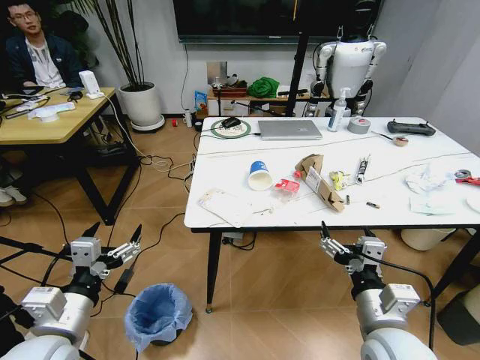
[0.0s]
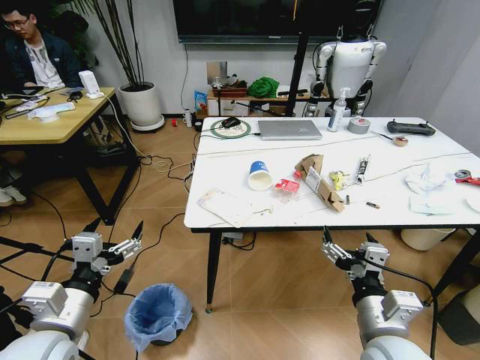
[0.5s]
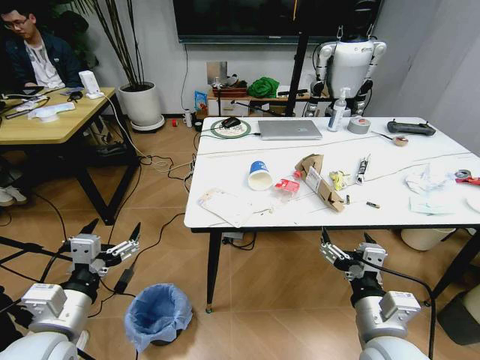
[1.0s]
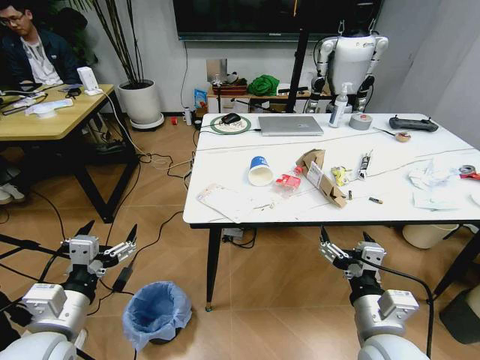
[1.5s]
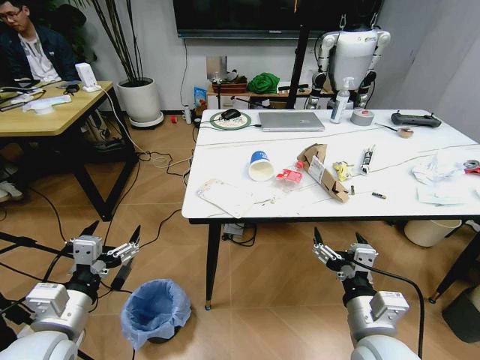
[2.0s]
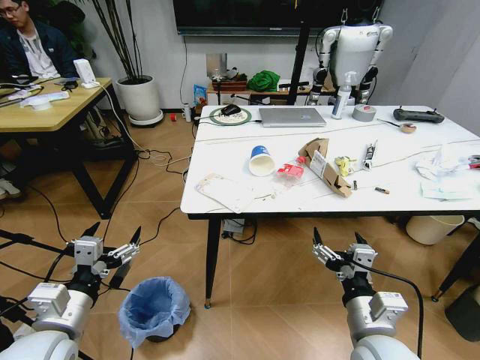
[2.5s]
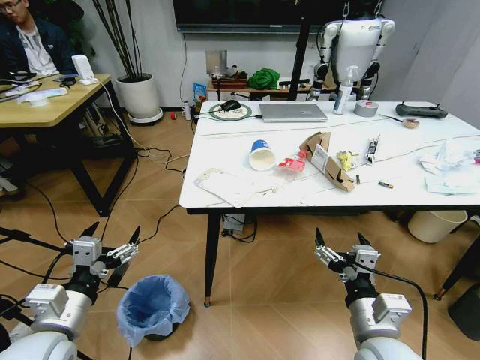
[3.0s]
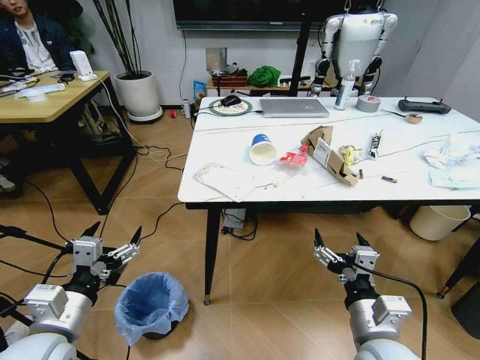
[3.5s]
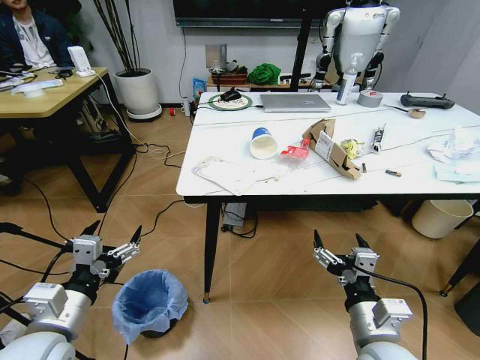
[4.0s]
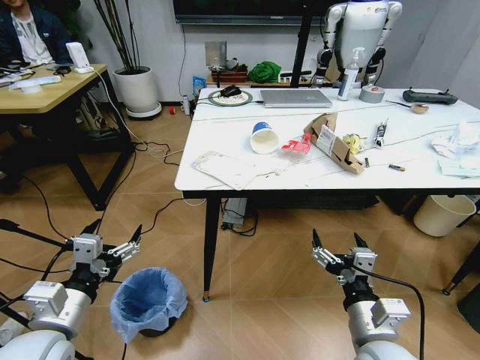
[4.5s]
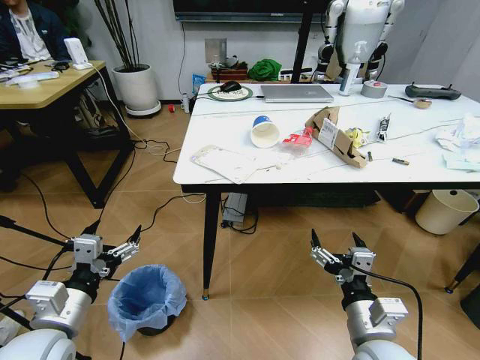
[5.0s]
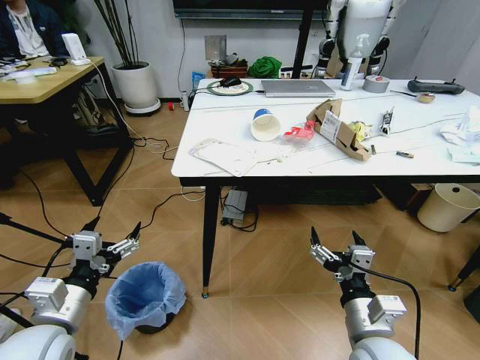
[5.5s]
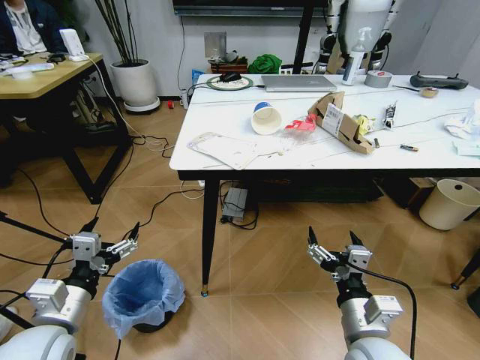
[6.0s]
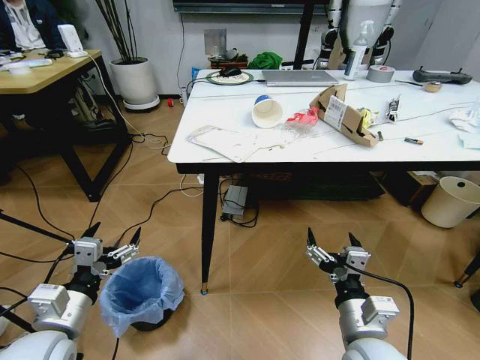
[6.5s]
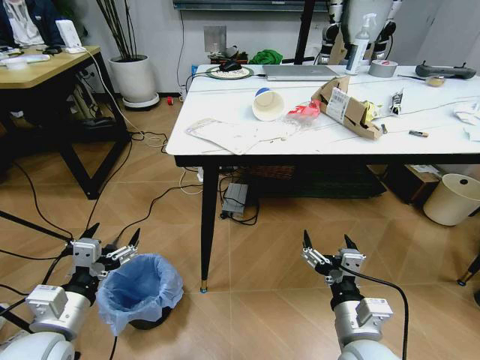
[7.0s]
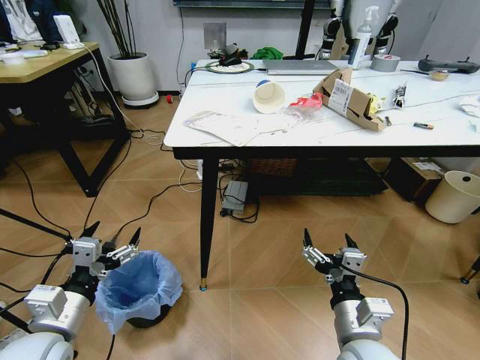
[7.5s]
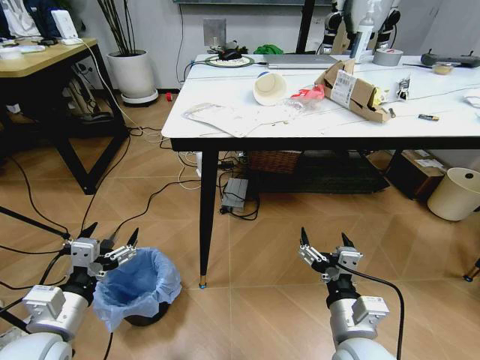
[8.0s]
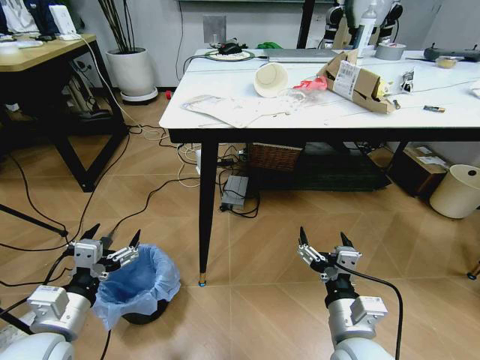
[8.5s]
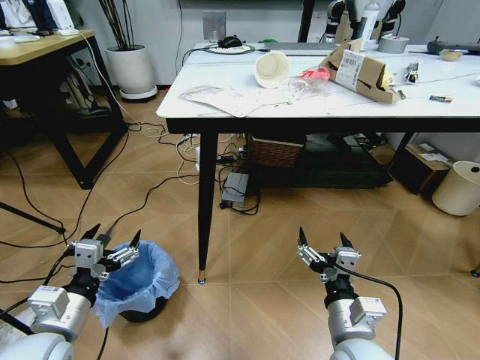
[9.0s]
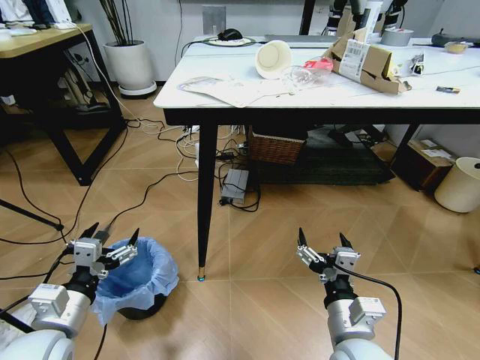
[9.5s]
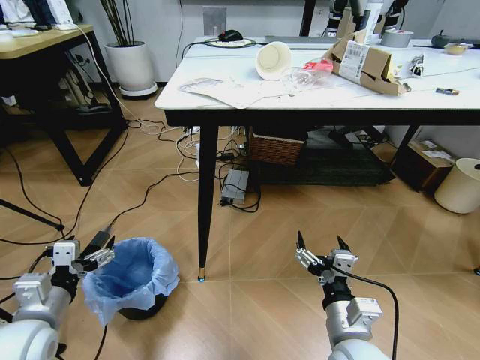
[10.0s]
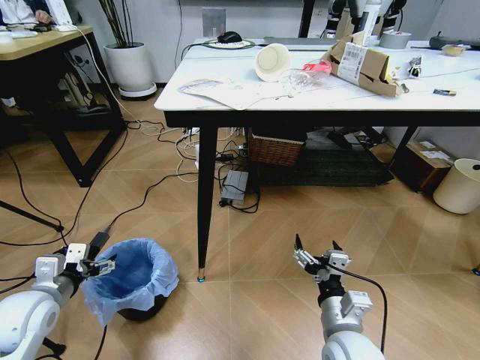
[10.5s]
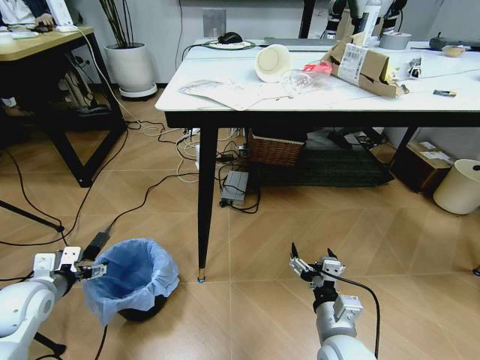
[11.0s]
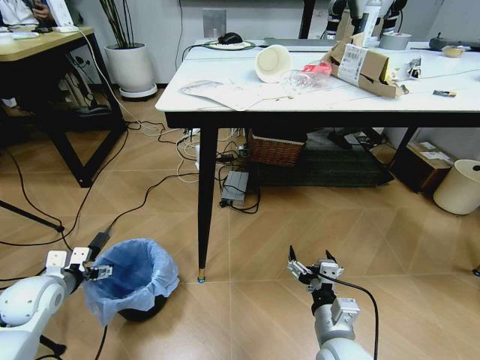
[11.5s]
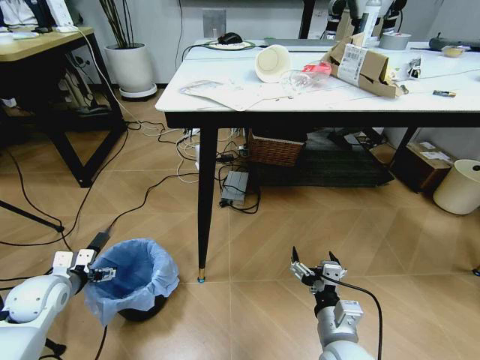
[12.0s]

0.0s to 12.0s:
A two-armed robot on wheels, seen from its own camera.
Task of the whole recording: Pick up the trash bin and place the trash from the table into it.
10.0s to 12.0s: The left gripper is displaced forward, to the left and downward by approximately 15 cm. Meanwhile the right gripper changes place by roughly 5 cm.

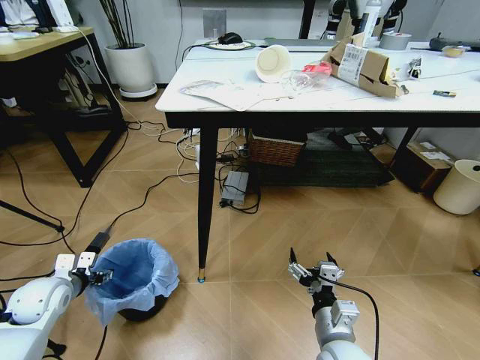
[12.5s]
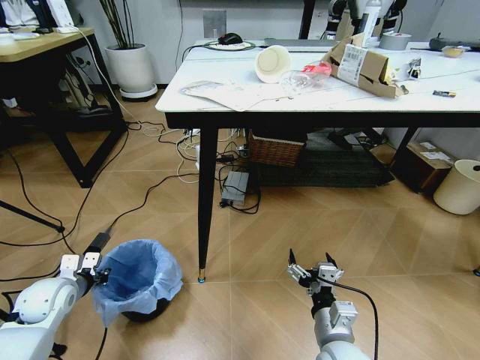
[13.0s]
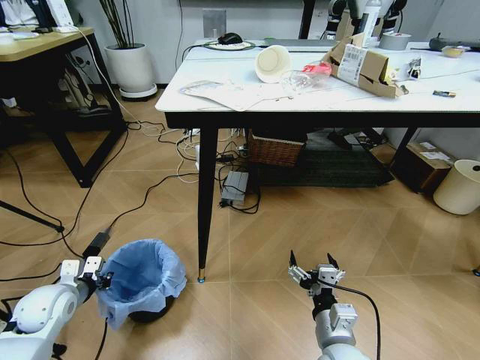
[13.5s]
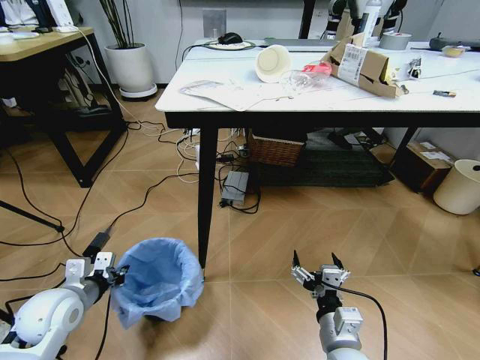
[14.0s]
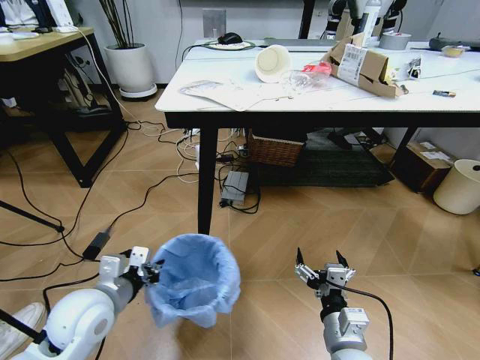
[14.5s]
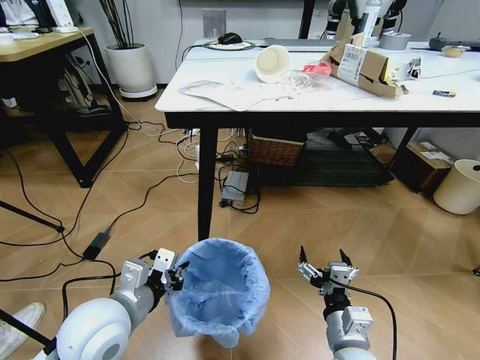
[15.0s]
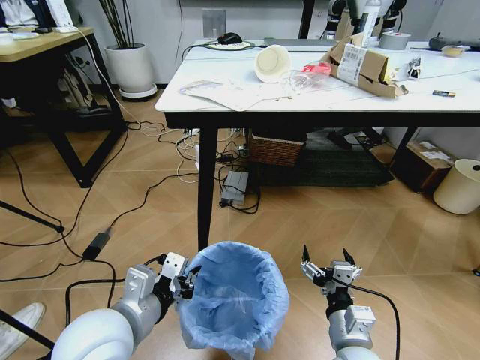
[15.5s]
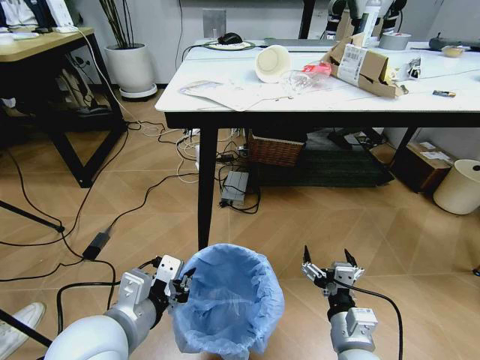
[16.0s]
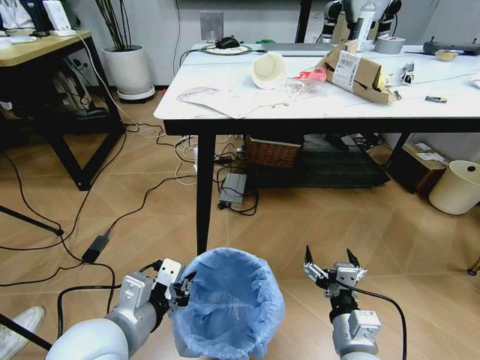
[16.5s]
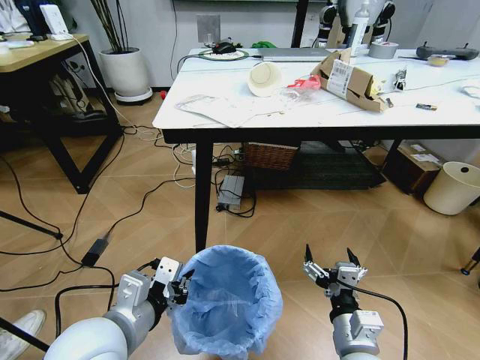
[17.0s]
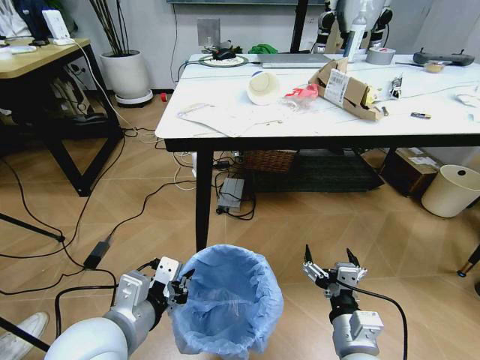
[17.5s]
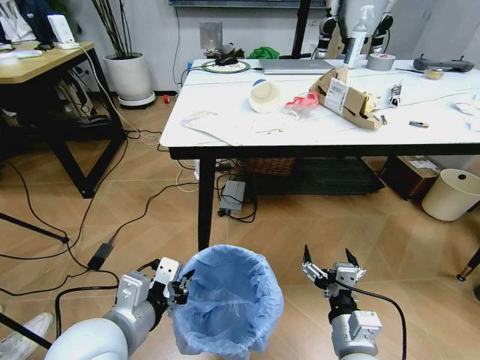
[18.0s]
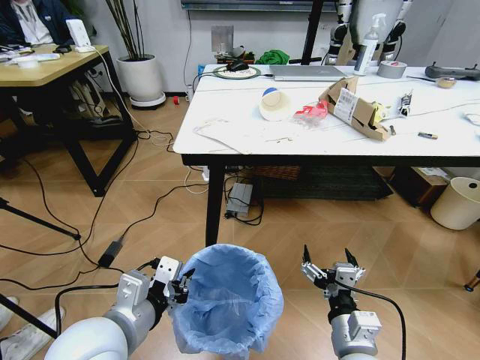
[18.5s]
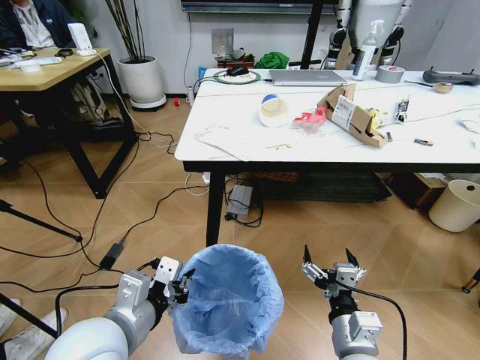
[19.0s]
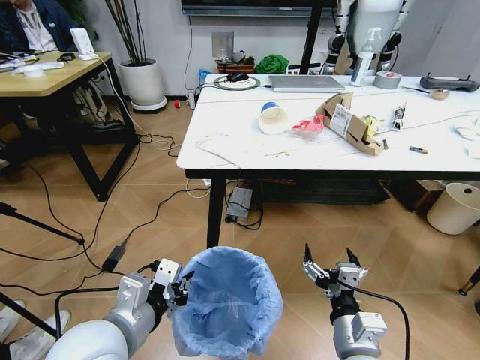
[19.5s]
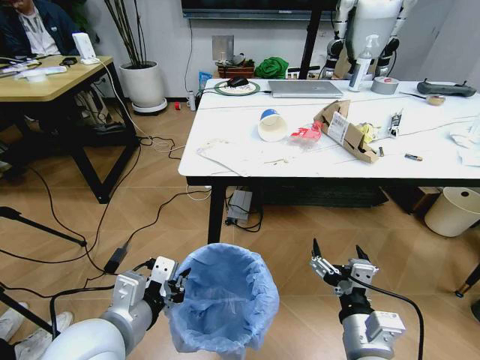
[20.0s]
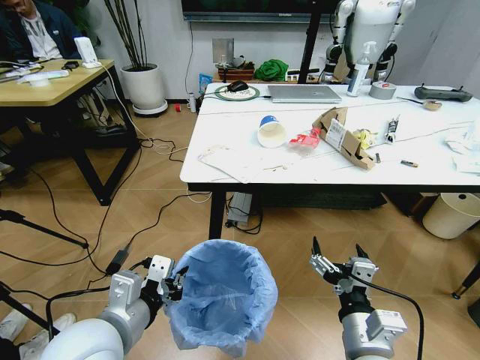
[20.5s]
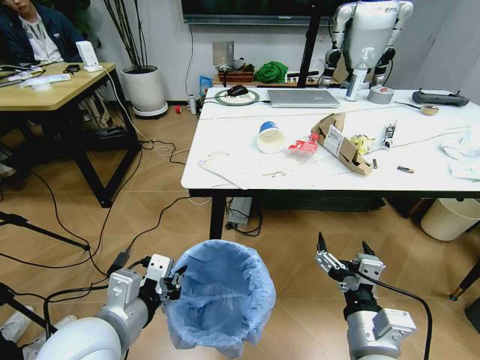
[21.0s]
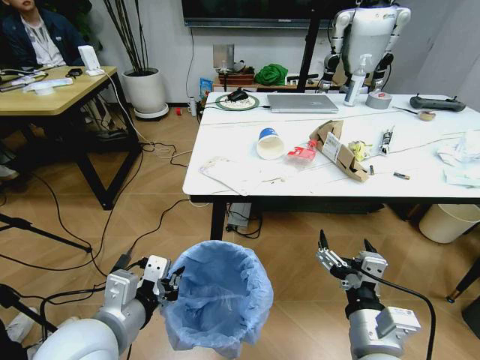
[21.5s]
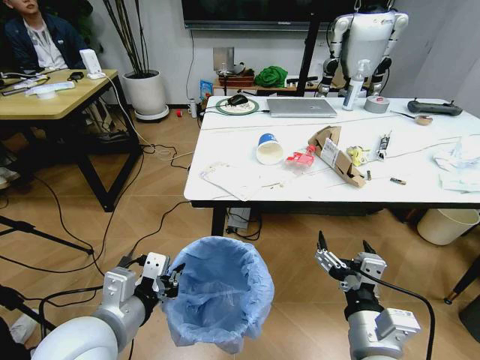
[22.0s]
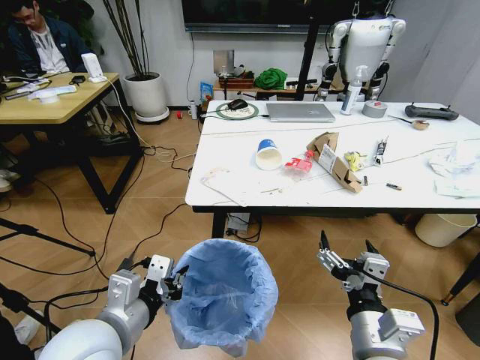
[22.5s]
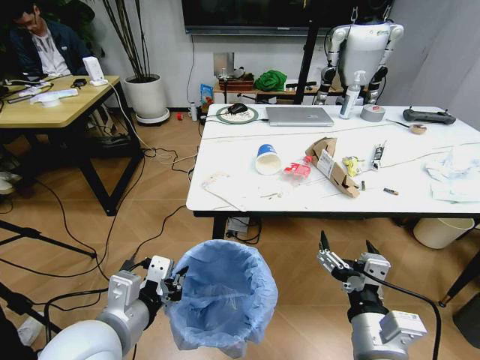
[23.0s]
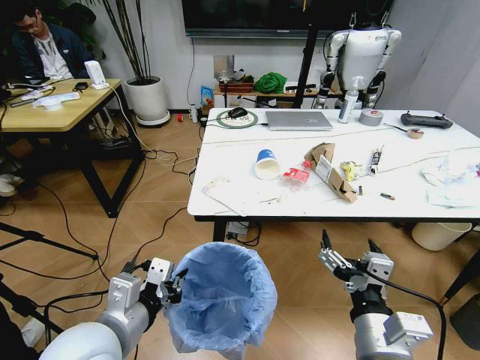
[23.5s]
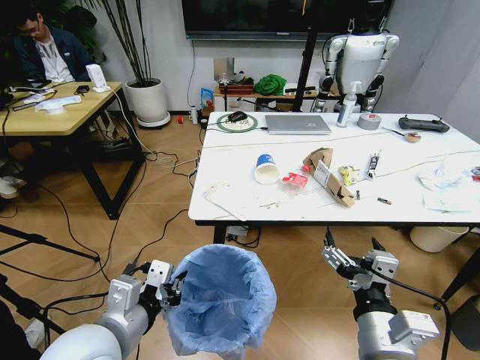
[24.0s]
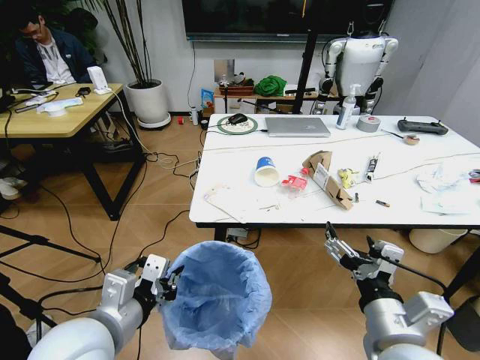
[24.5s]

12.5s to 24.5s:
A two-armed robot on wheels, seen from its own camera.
Task of the whole recording: Pick up the trash bin and place the trash from the table into it.
12.5s to 14.5s: The left gripper goes about 20 cm to the right and upward, and closes up.
14.5s to 16.5s: The left gripper shifts roughly 15 cm to the right, backward and upward.

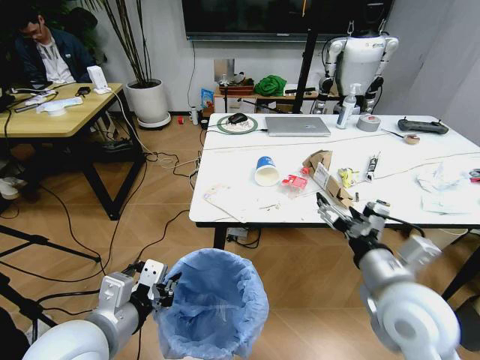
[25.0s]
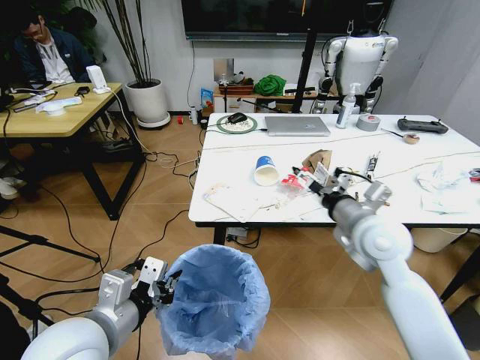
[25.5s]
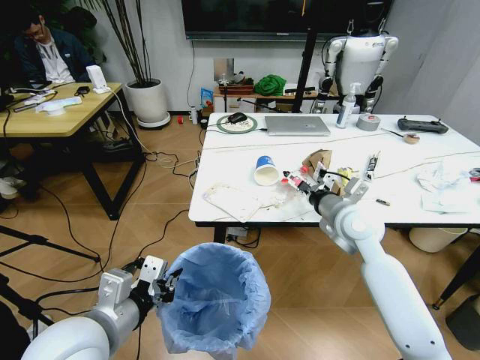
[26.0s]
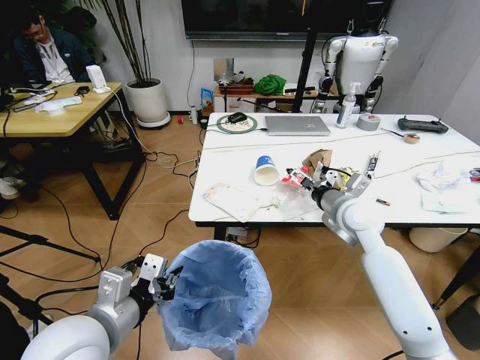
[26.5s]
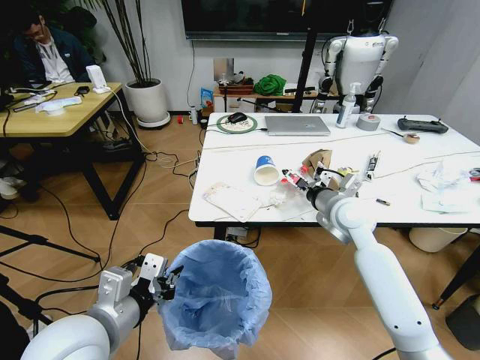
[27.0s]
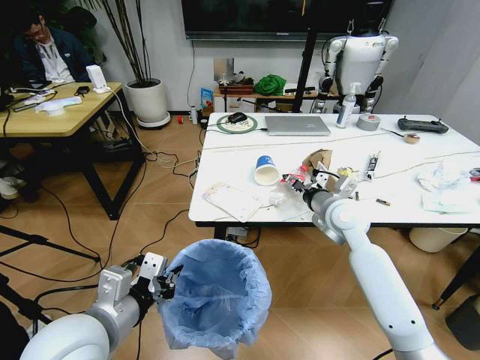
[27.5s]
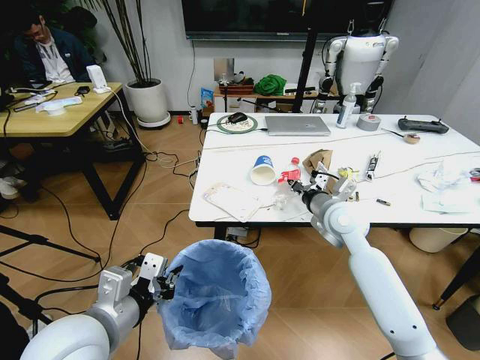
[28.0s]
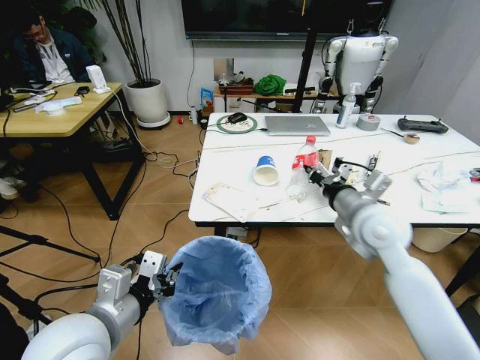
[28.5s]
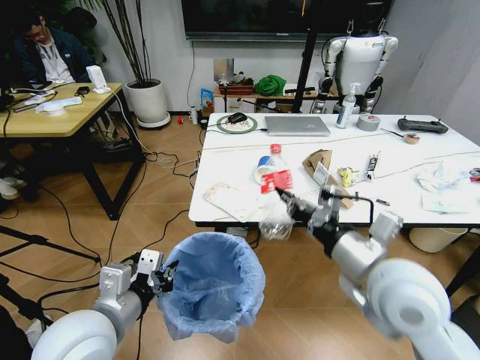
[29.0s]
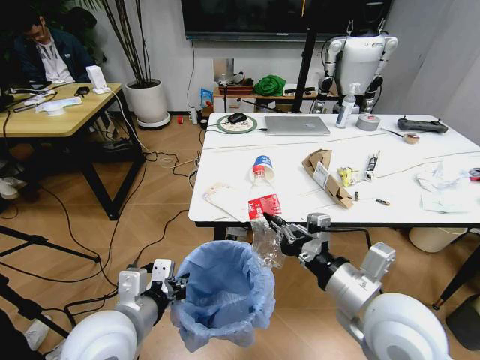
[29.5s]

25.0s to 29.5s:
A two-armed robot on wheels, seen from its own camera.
Task of the whole recording: Pick up the trash bin and place the trash from the table into it.
25.0s to 27.0s: The right gripper goes roughly 20 cm forward.
27.0s to 29.5s: The right gripper travels backward by roughly 25 cm, and closes its fingers.
